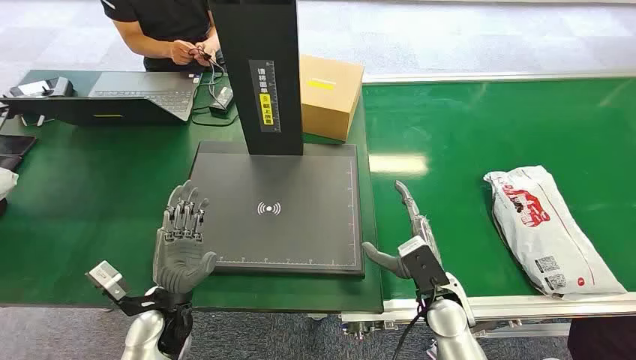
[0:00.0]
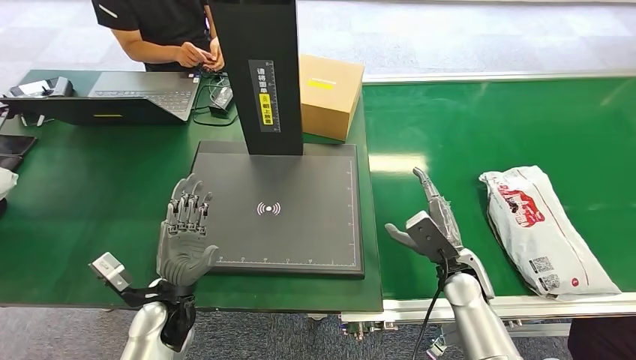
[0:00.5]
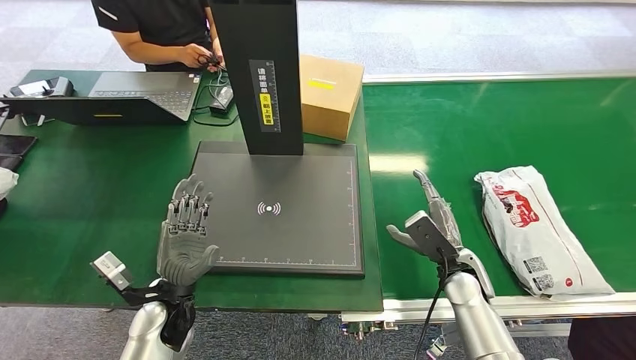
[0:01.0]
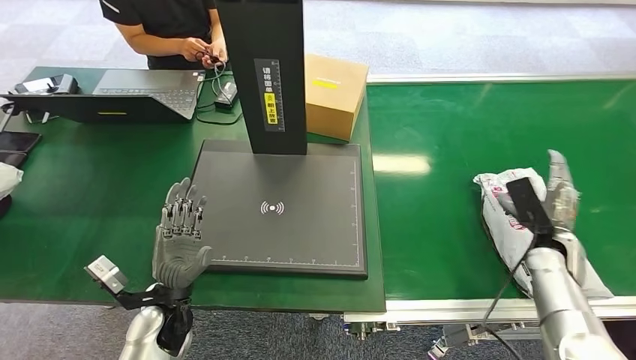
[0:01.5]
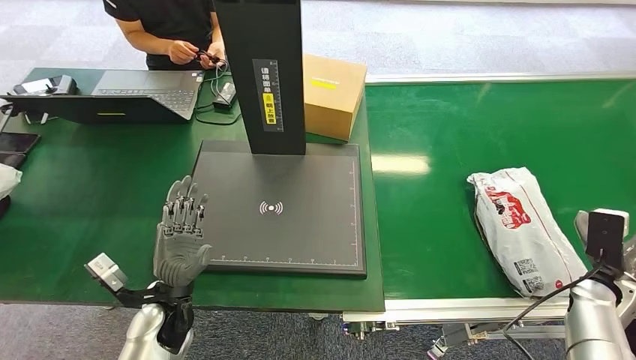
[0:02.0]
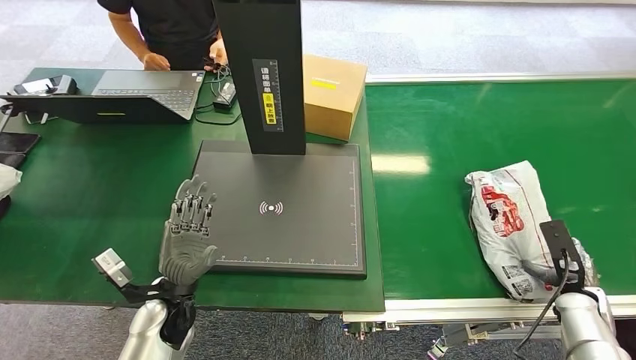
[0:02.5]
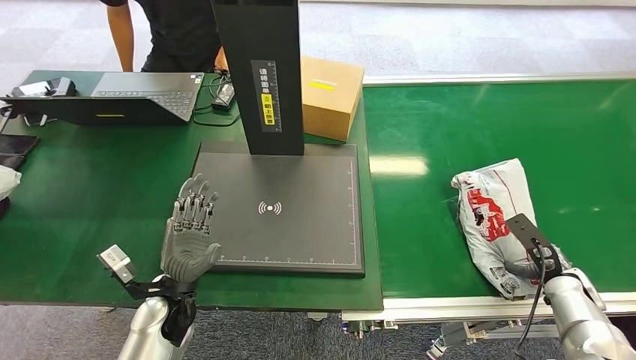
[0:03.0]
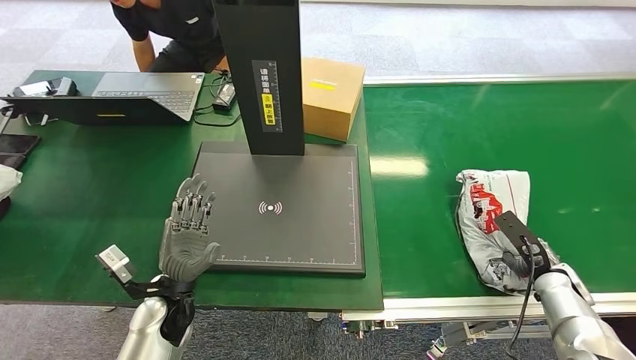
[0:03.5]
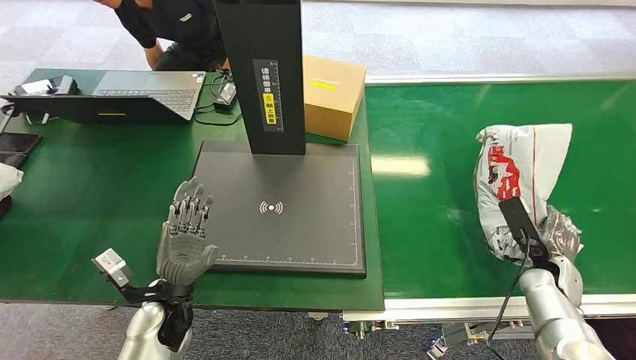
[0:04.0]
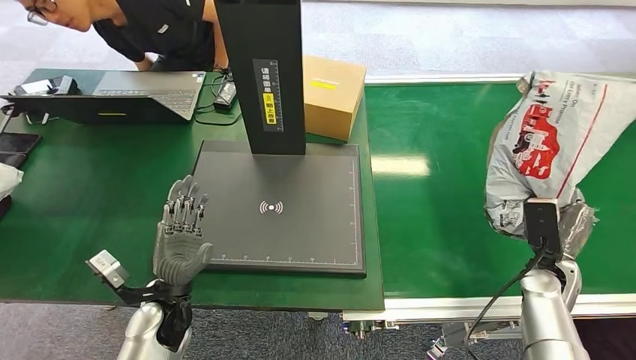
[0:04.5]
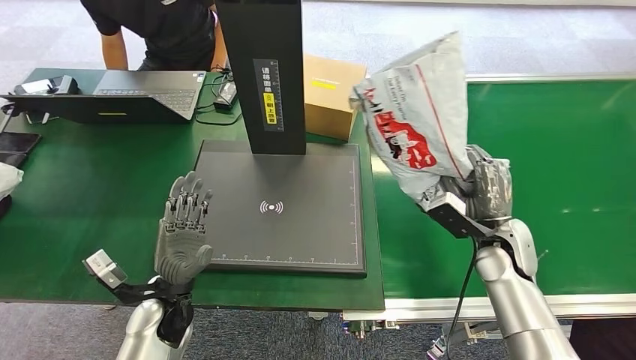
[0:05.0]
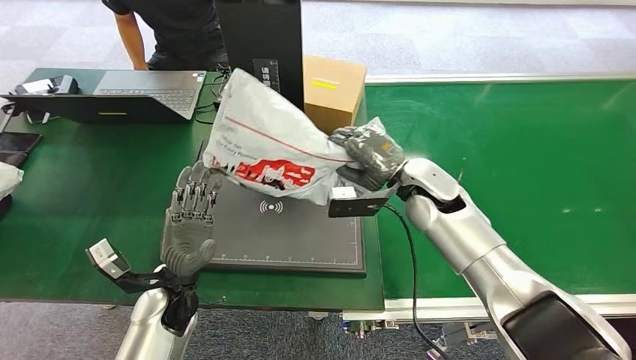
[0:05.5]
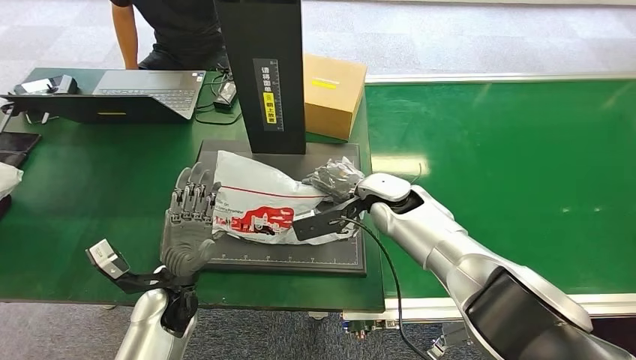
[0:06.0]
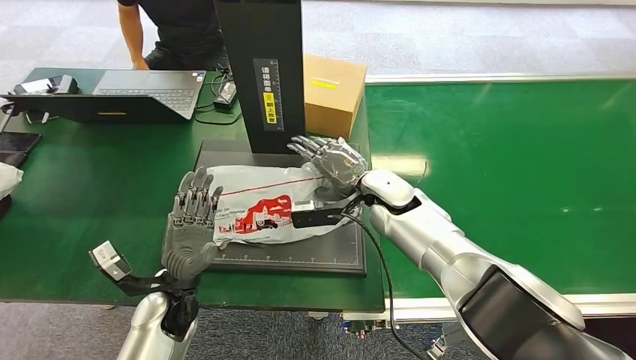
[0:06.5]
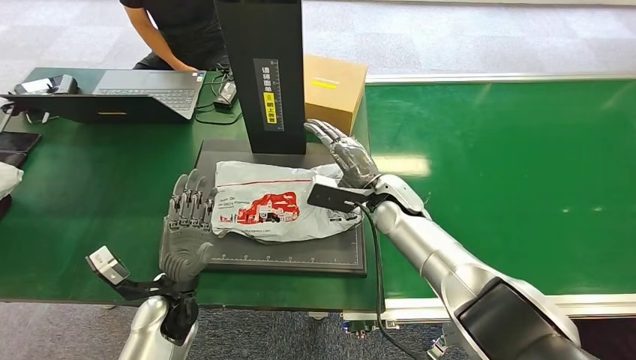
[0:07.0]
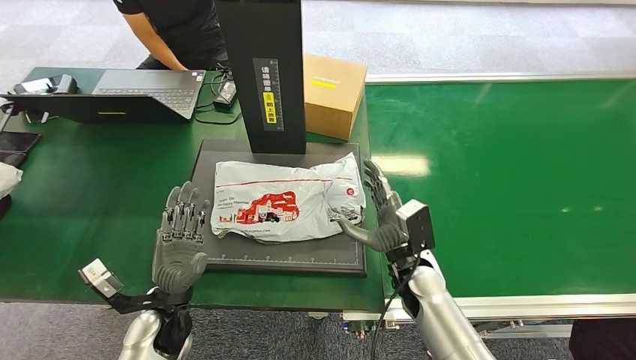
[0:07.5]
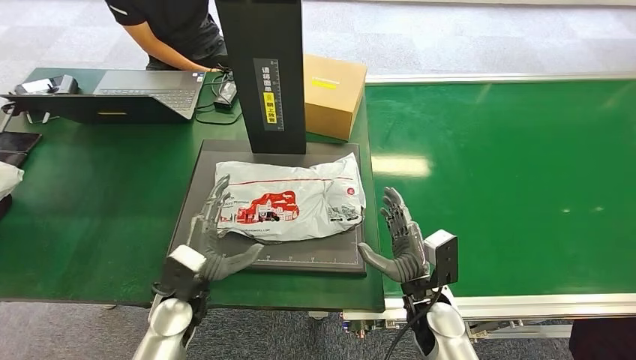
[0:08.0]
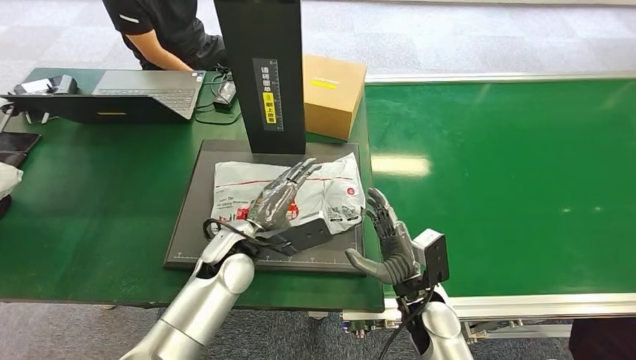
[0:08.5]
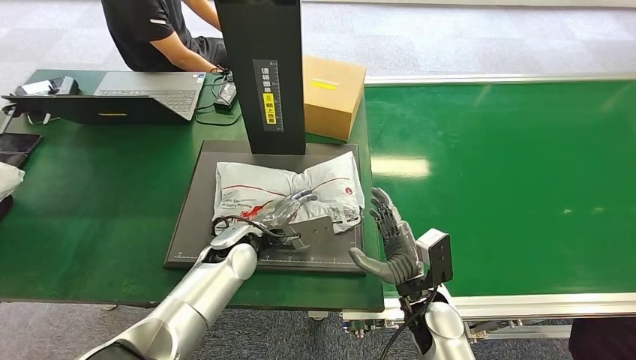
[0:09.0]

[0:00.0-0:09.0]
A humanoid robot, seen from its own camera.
Task of the whole recording: Weigh the package on the weighing device and place it in the left basket.
Step, 0:00.0 to 0:03.5: Pick up the package from the conveyor belt.
Step, 0:04.5 to 0:07.5: Place the package onto the inbound machine.

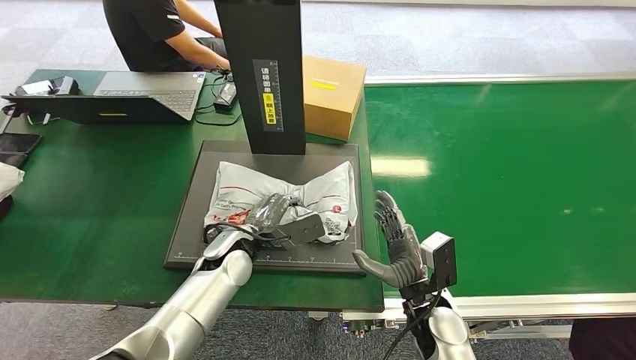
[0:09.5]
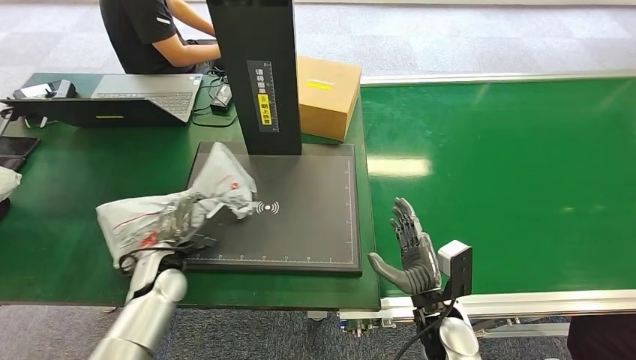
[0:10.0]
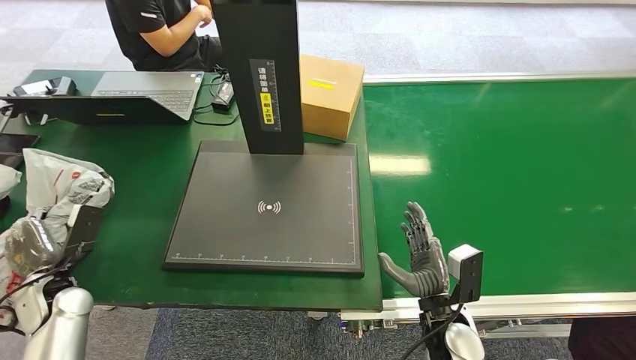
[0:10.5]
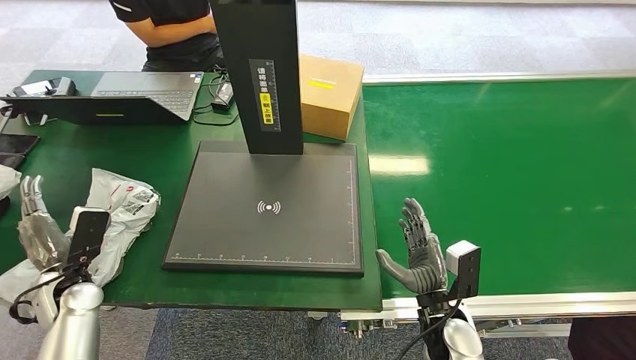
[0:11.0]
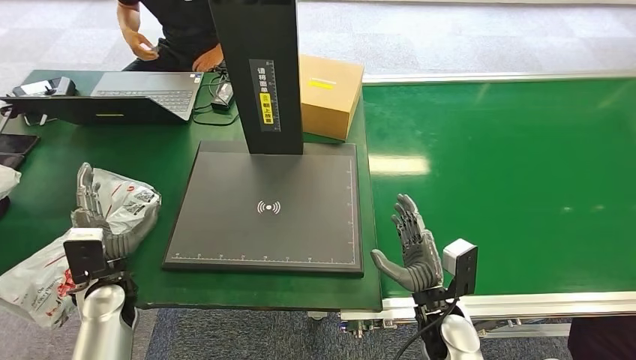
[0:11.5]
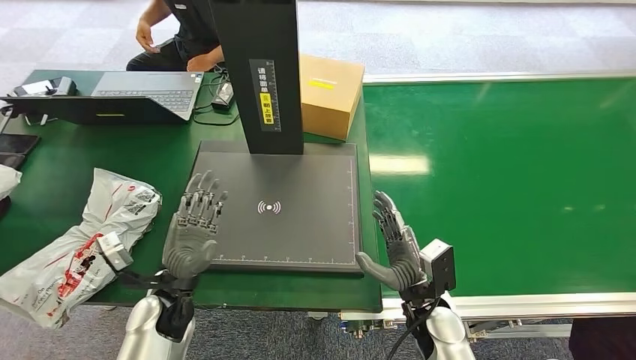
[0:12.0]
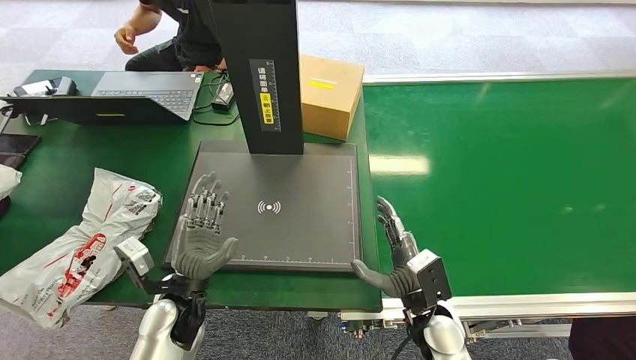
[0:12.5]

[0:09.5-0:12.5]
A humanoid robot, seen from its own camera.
Task of the whole recording: Weigh the package on the weighing device and place it in the left basket.
Step, 0:10.0 to 0:12.5: Place the package into the parcel locker.
0:11.0 to 0:12.5: The left hand heads to the right, covering approximately 20 cm.
